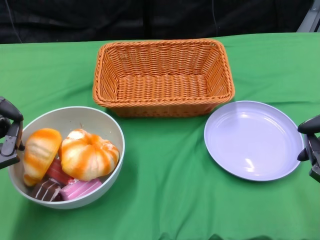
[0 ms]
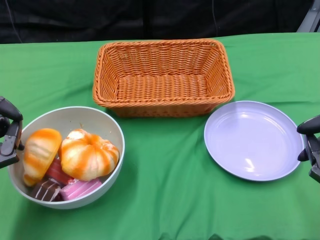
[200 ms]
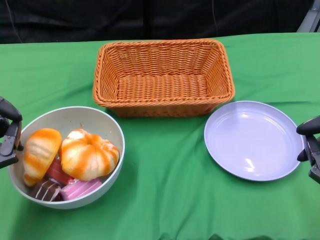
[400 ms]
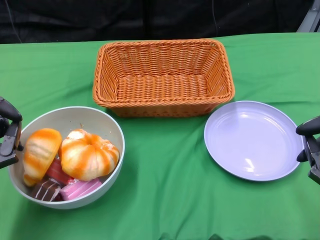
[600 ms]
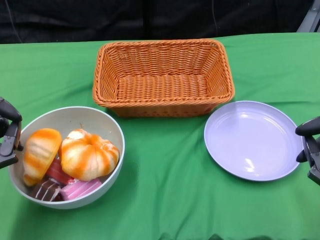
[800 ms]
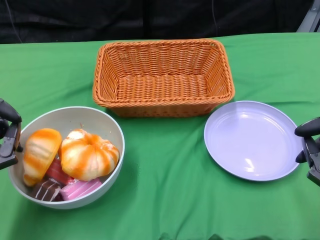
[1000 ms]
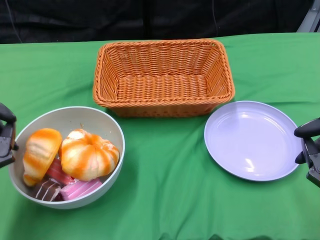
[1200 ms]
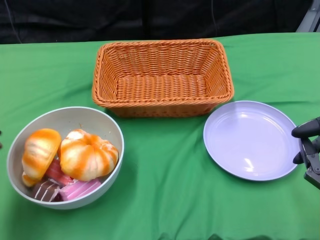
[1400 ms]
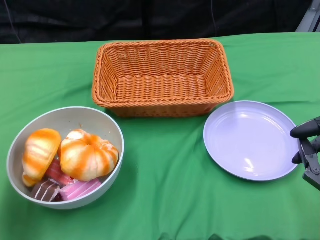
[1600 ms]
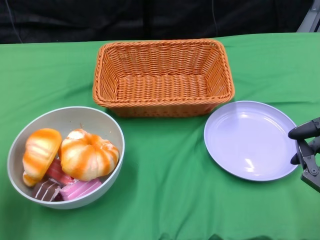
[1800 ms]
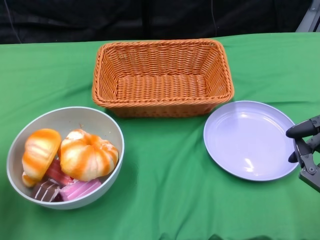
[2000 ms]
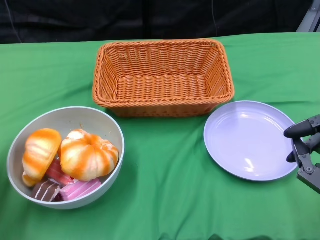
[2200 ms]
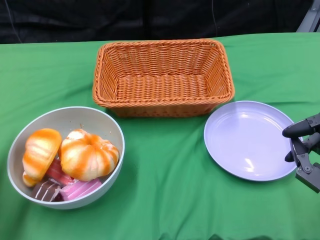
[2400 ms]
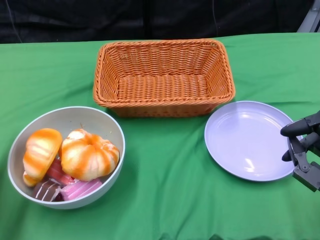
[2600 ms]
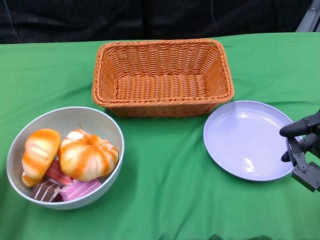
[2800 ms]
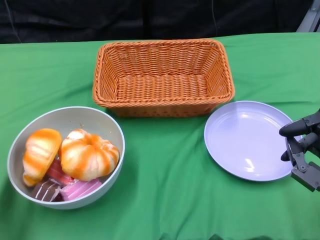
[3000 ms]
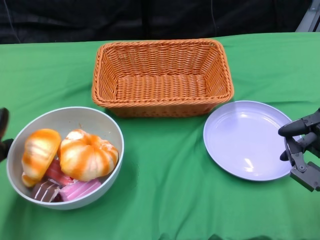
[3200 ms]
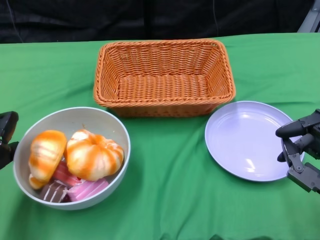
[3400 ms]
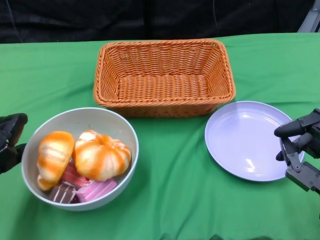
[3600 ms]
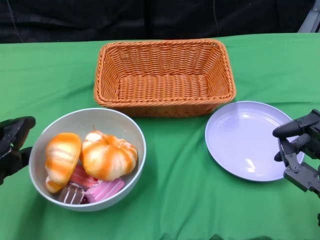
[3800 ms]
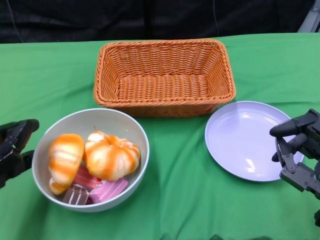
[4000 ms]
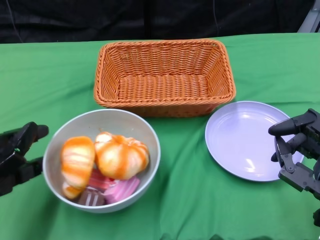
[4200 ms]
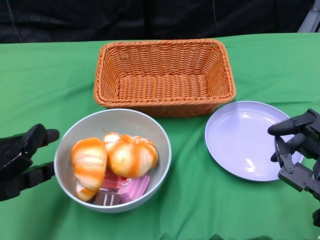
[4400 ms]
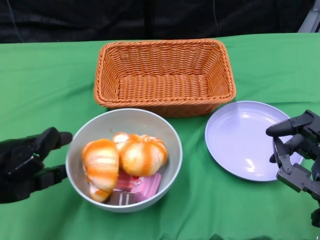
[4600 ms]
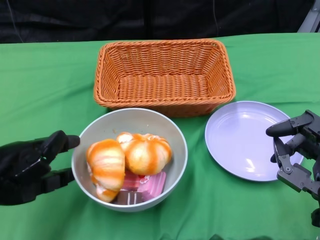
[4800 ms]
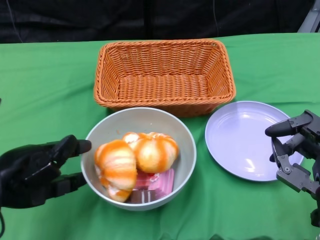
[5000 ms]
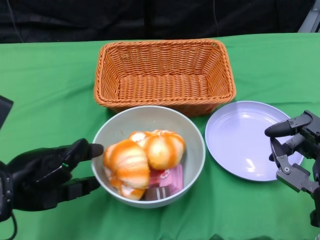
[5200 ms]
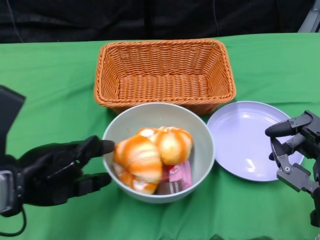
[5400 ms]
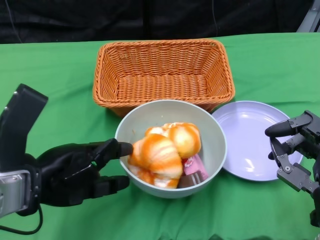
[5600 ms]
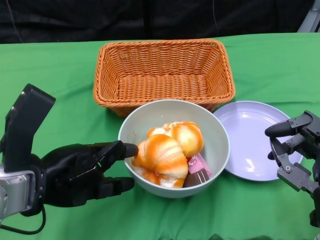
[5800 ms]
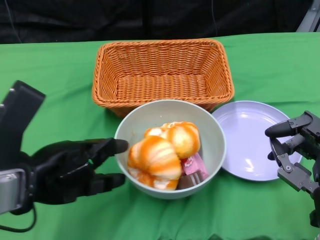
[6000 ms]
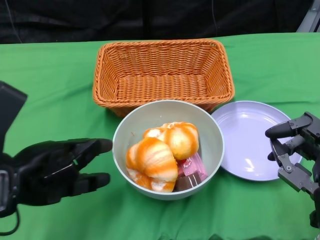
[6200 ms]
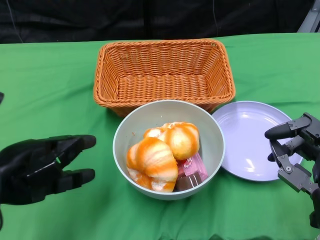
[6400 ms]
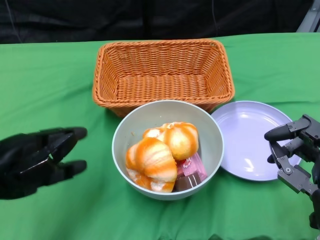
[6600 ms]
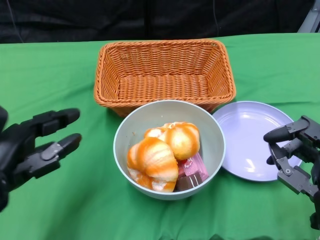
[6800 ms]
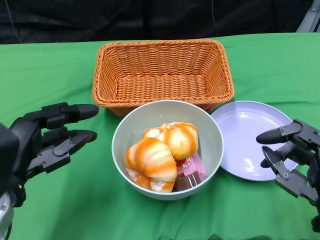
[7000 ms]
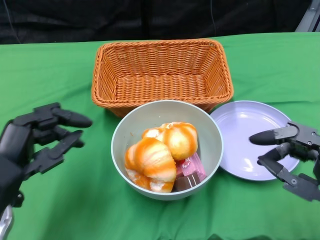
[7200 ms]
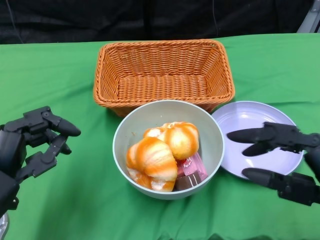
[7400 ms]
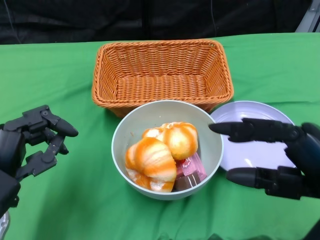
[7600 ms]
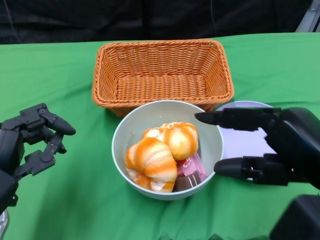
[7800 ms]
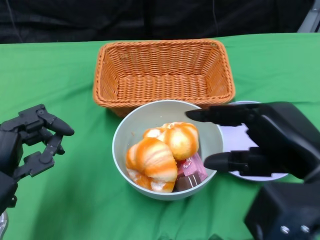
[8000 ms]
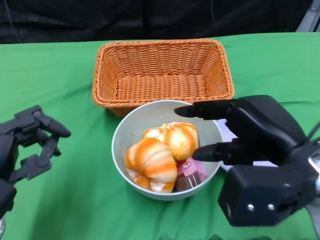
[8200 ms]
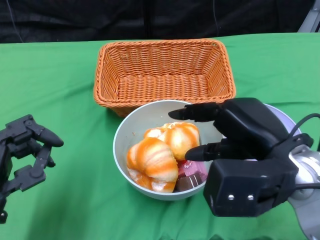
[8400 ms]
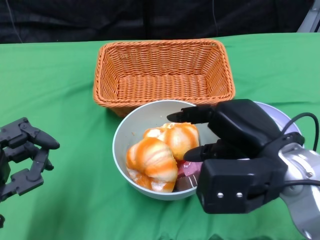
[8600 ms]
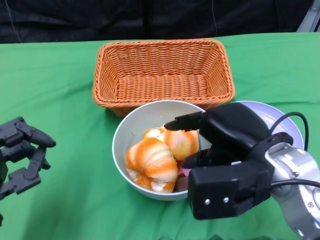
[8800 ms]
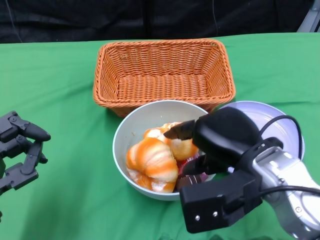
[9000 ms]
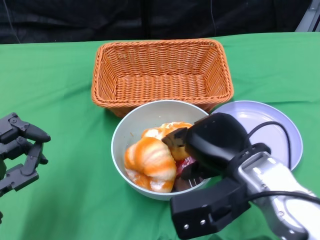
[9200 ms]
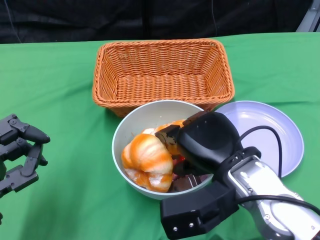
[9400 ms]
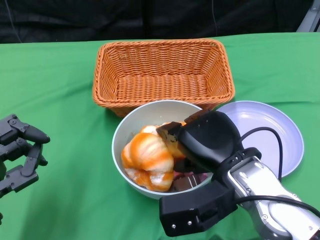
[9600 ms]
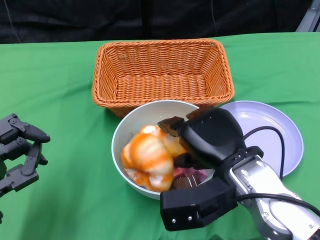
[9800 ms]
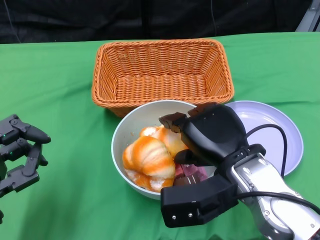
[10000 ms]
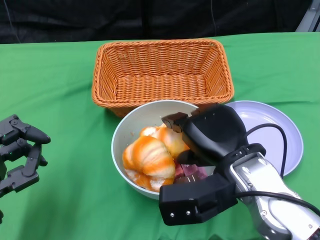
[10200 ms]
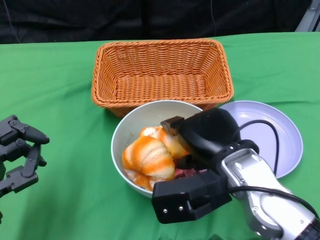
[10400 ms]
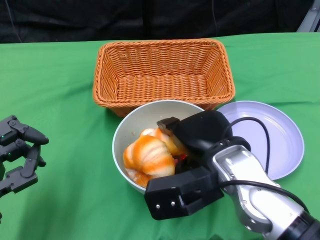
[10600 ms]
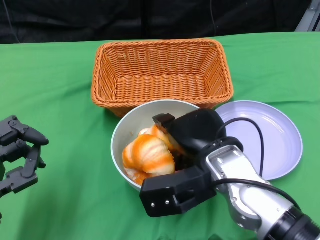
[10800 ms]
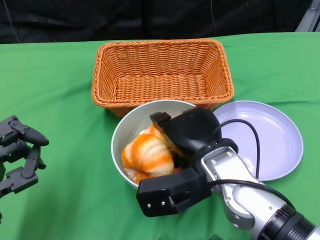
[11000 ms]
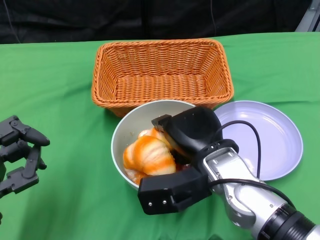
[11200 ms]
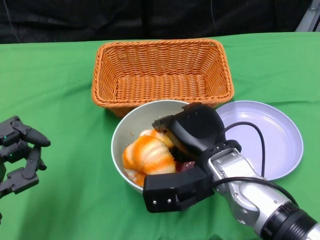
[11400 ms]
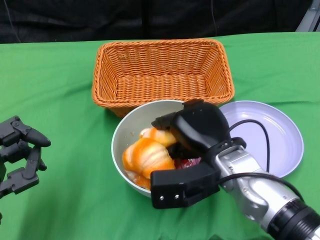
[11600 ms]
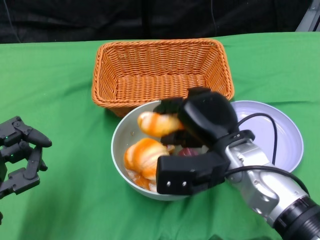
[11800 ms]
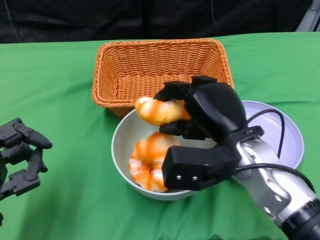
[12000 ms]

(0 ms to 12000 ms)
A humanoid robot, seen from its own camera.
Step, 0 ms - 6200 ms: Push the bowl to the center of the table using the left gripper.
1600 ms - 3000 ms: The left hand moves some 5 cm.
4400 ms - 6000 ms: The left hand goes some 5 cm to the right.
6000 ms - 7600 ms: The left hand moves downward, about 5 cm. Meanwhile the right hand travels upward by about 10 cm.
7600 ms - 9000 ms: The right hand goes some 10 cm to the left and forward.

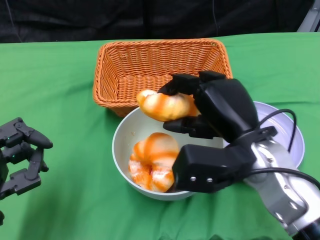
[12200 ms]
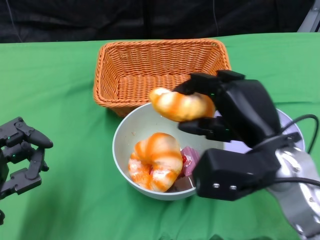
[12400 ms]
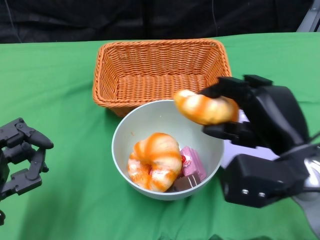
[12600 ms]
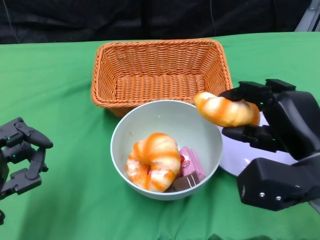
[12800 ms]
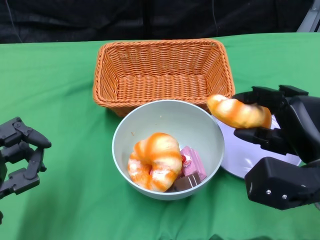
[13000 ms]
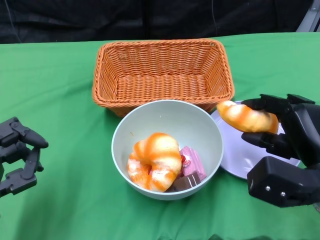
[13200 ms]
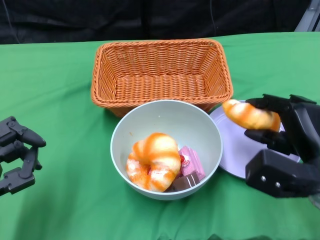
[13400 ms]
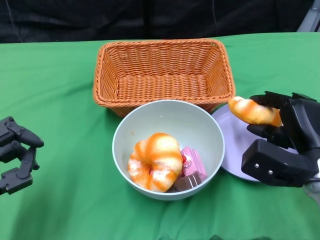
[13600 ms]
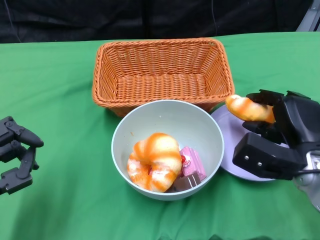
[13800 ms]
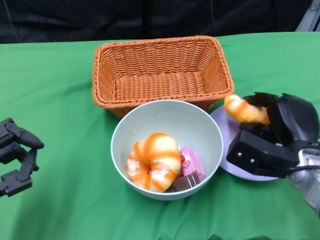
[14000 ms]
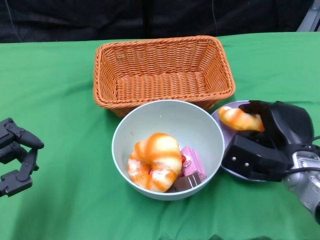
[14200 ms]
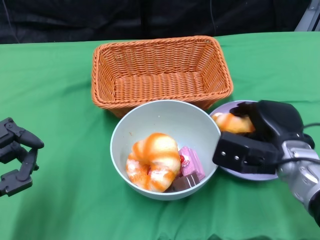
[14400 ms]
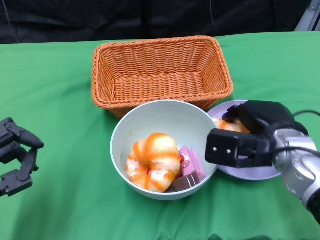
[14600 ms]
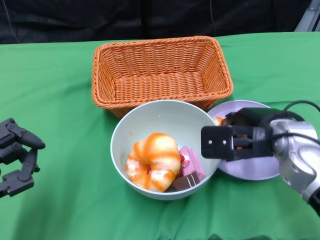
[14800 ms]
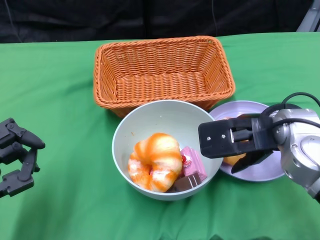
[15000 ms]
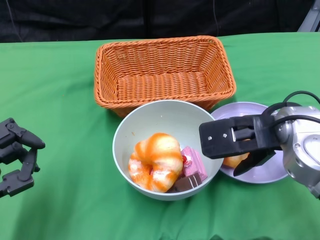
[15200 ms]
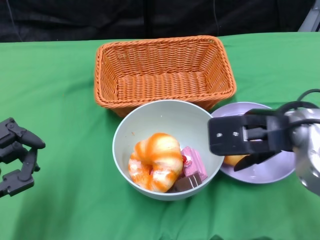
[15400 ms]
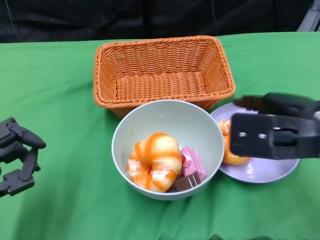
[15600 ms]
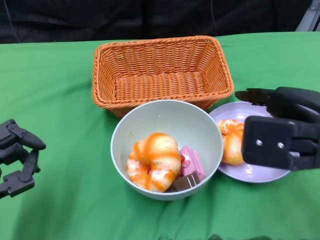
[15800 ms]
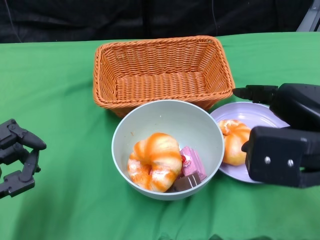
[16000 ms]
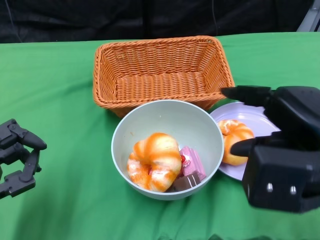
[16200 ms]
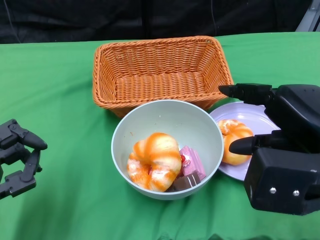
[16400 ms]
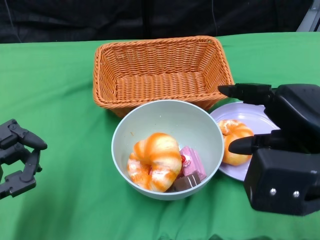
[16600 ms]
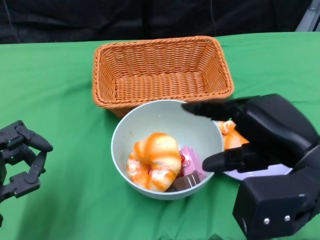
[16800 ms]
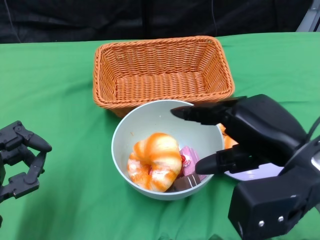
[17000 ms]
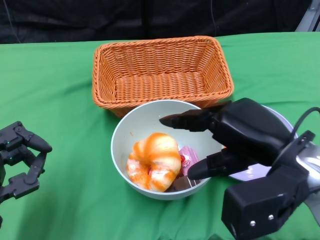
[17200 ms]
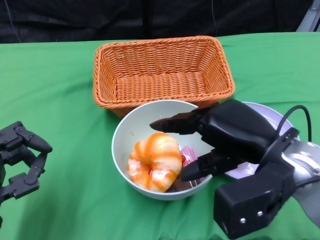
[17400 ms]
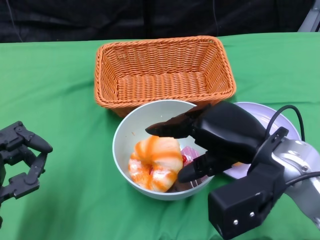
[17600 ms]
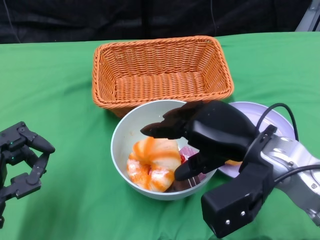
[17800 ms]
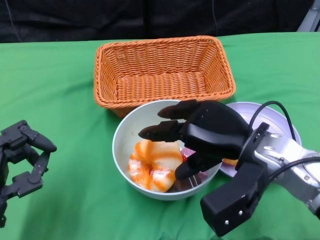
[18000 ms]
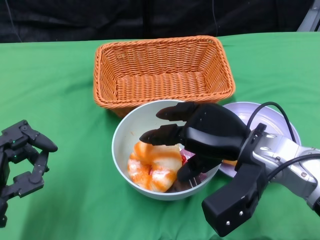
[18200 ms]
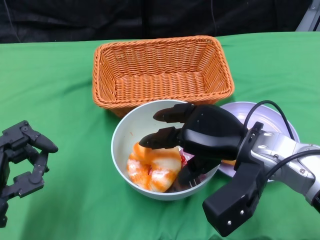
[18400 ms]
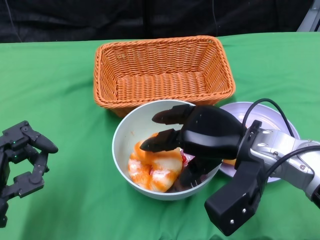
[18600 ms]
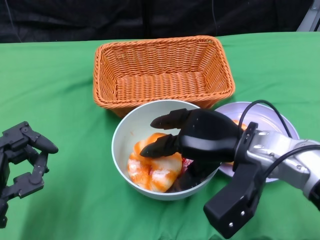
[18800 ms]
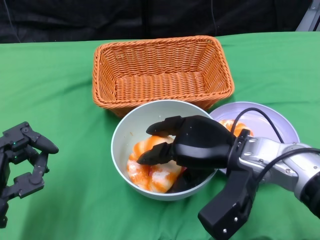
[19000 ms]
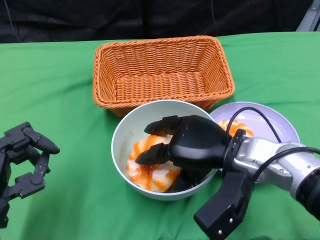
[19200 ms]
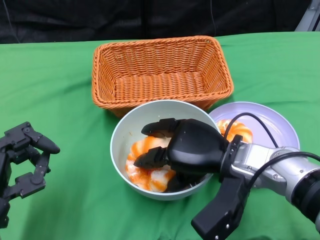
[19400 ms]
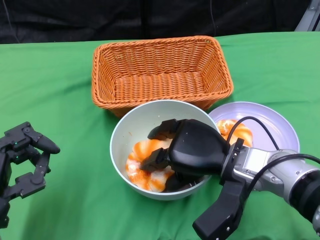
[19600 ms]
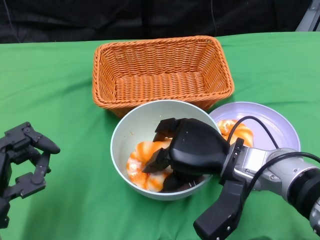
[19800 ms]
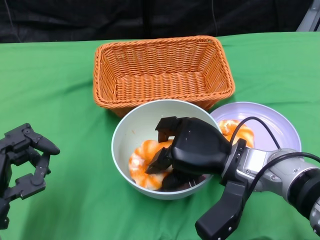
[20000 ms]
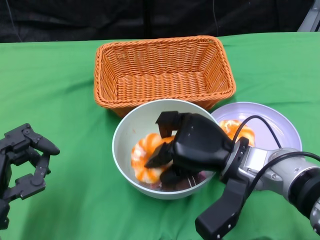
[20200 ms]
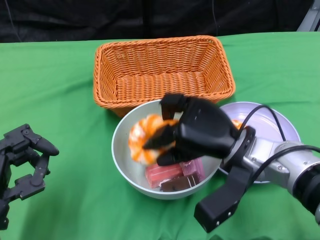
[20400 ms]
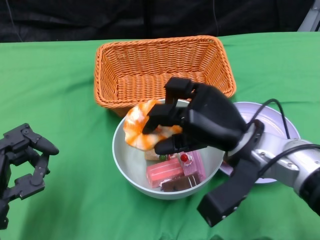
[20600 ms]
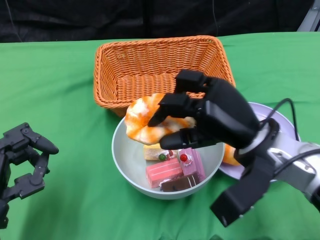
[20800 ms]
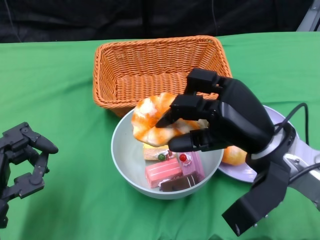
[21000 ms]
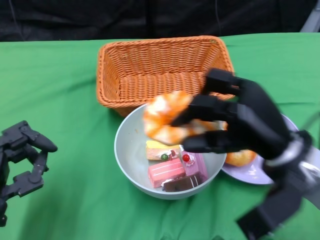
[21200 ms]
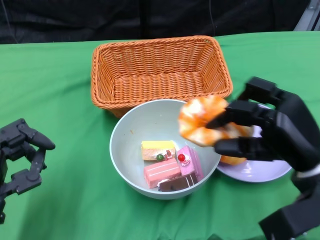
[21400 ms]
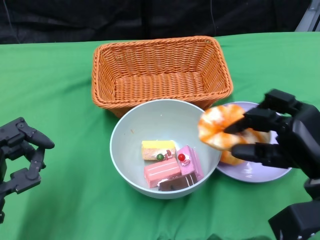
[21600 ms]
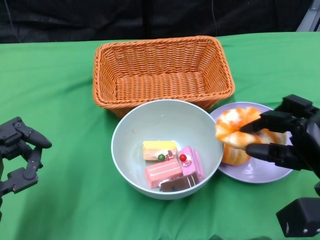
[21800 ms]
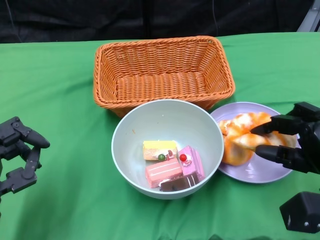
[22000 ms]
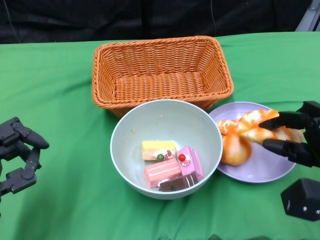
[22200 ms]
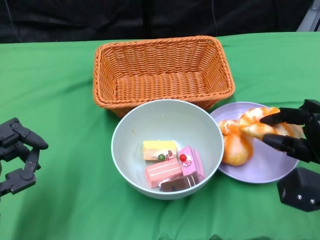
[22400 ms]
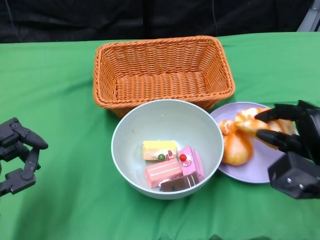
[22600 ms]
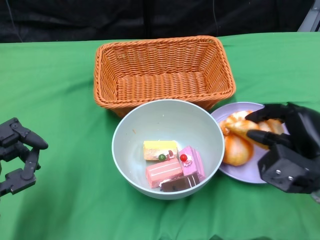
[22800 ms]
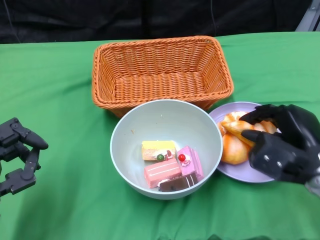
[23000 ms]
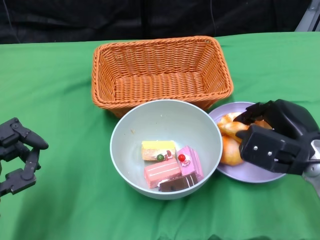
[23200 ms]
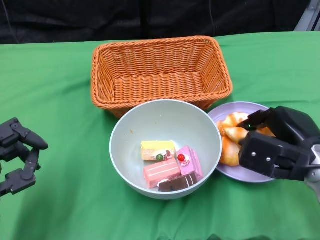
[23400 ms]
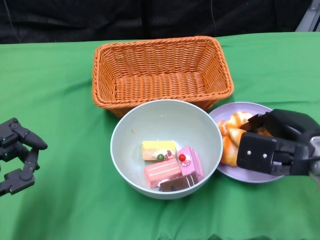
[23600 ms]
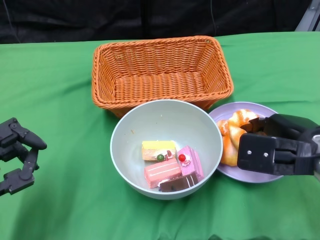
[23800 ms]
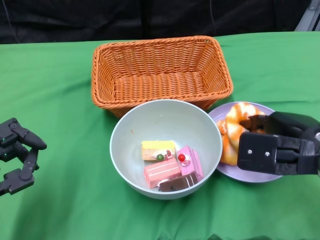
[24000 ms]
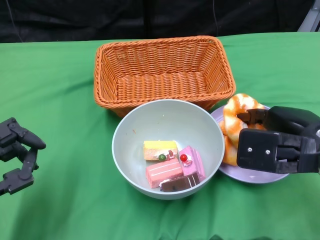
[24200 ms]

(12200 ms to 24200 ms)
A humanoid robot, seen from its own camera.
Step, 12200 ms - 15400 ms: Pick up the bread with the right gripper and place it on the plate.
12200 ms - 13800 ms: The right hand is displaced to the right and downward by approximately 10 cm.
13800 ms - 15200 ms: The right hand travels upward by about 10 cm.
15200 ms - 16600 ms: The right hand goes approximately 10 cm backward.
16600 ms - 18200 ms: The right hand is displaced downward, forward and to the left by about 15 cm.
18200 ms - 19800 ms: The right hand ends up approximately 5 cm from where it was.
19800 ms - 21200 ms: The right hand is displaced to the right and upward by about 10 cm.
21200 ms - 22600 ms: The right hand travels downward and to the right by some 10 cm.
22600 ms - 24200 ms: The right hand shifts approximately 10 cm upward.
